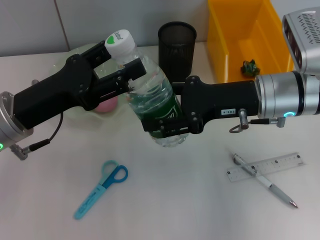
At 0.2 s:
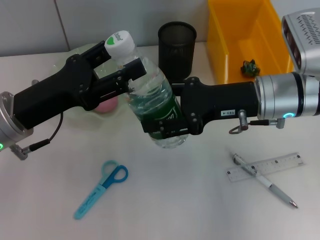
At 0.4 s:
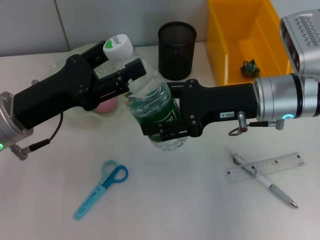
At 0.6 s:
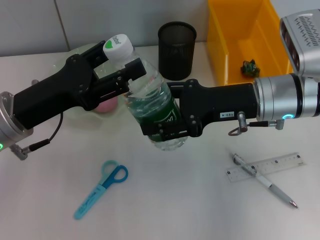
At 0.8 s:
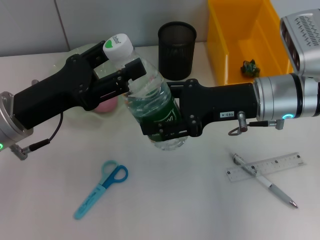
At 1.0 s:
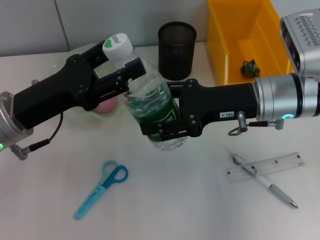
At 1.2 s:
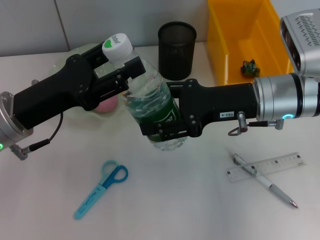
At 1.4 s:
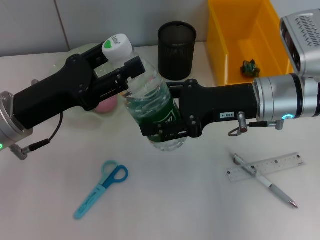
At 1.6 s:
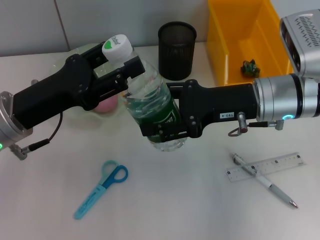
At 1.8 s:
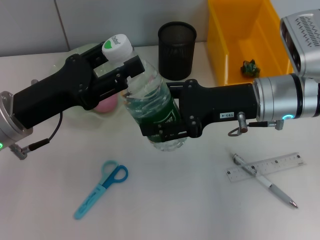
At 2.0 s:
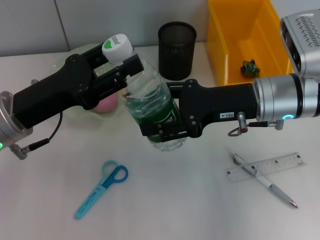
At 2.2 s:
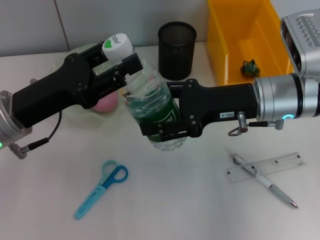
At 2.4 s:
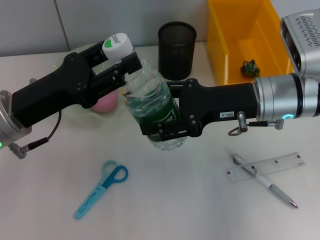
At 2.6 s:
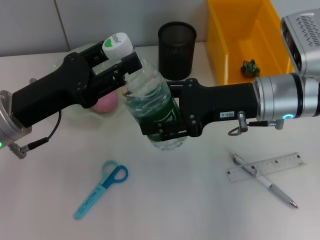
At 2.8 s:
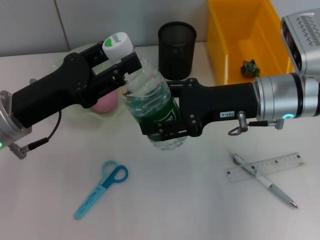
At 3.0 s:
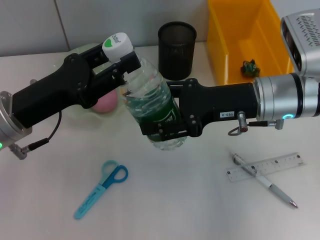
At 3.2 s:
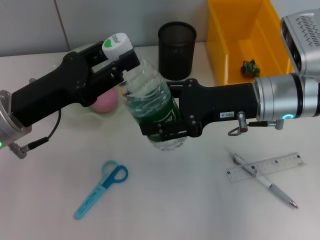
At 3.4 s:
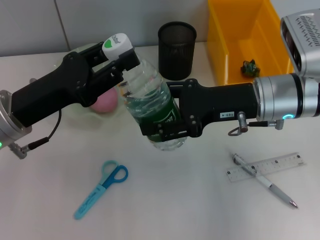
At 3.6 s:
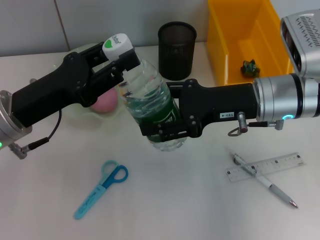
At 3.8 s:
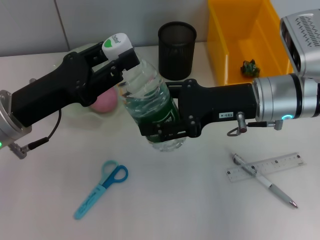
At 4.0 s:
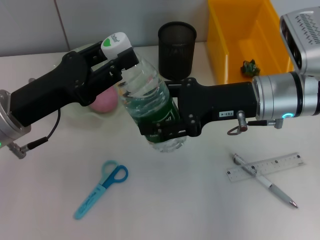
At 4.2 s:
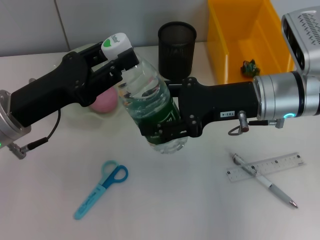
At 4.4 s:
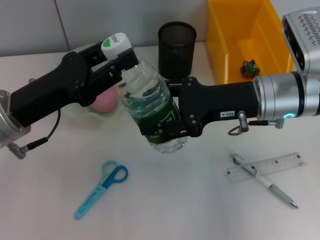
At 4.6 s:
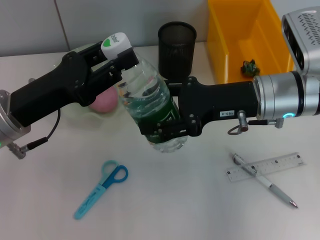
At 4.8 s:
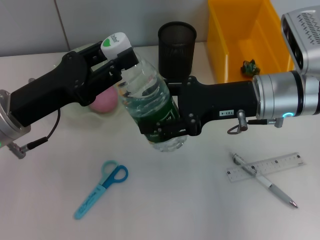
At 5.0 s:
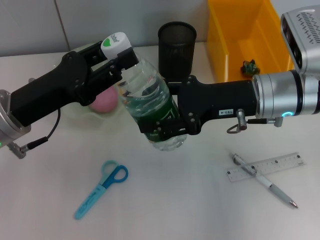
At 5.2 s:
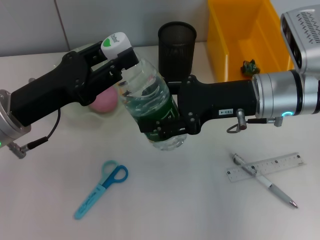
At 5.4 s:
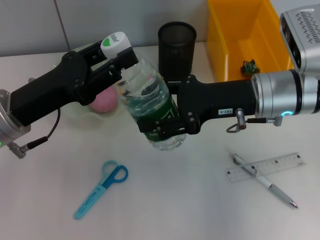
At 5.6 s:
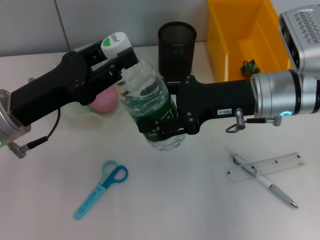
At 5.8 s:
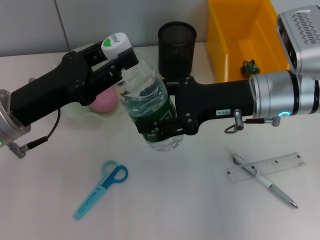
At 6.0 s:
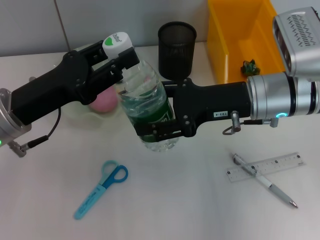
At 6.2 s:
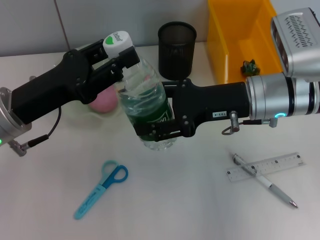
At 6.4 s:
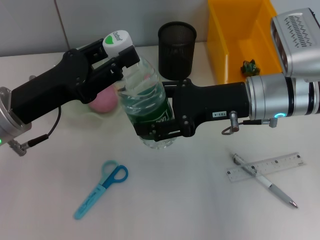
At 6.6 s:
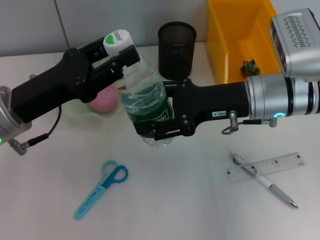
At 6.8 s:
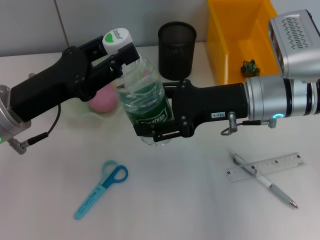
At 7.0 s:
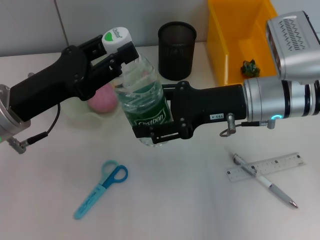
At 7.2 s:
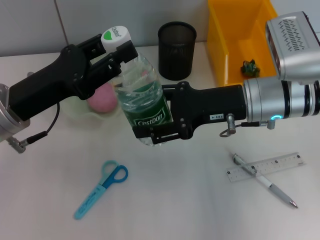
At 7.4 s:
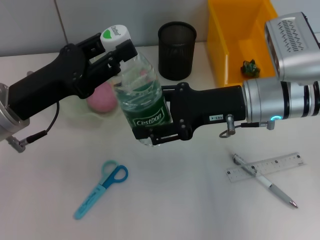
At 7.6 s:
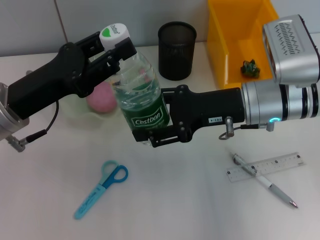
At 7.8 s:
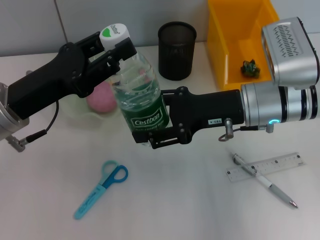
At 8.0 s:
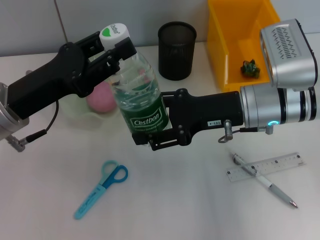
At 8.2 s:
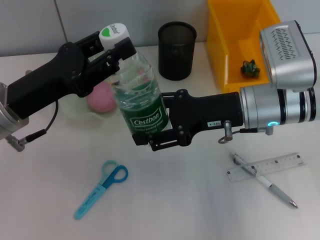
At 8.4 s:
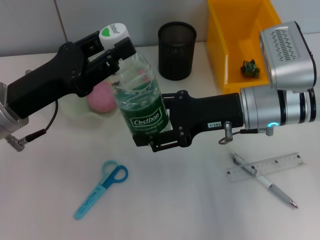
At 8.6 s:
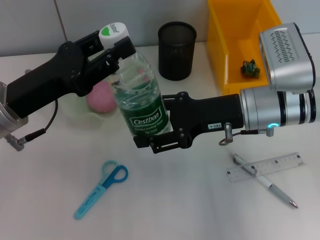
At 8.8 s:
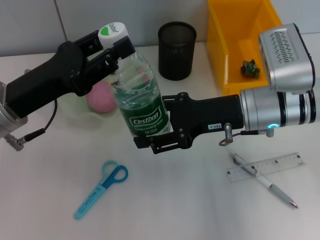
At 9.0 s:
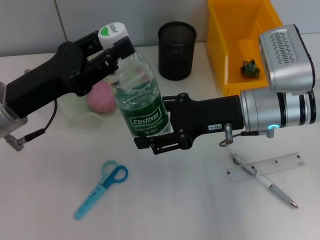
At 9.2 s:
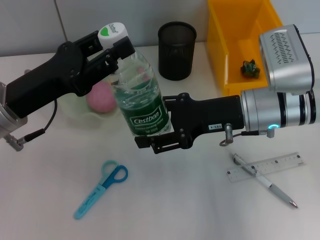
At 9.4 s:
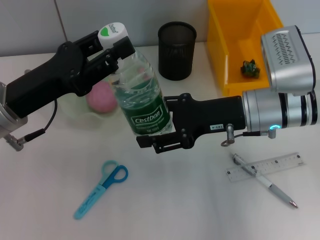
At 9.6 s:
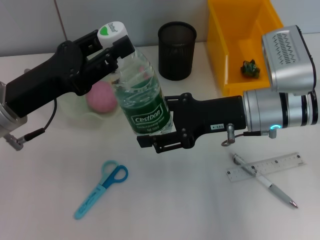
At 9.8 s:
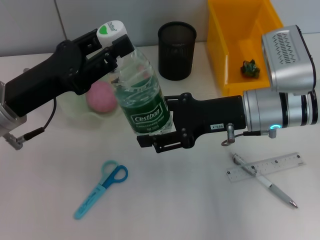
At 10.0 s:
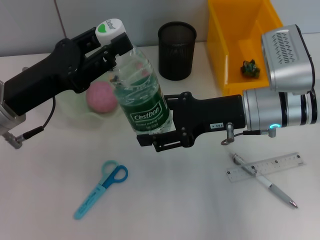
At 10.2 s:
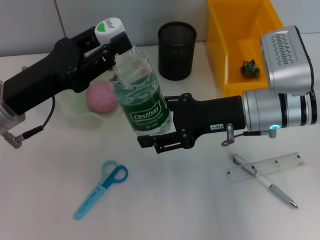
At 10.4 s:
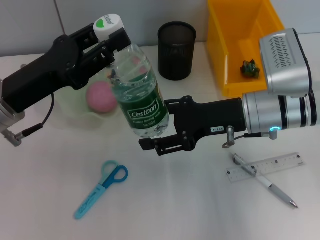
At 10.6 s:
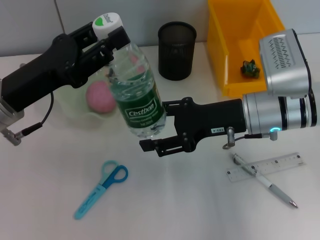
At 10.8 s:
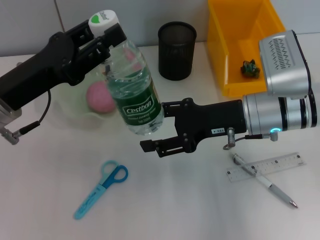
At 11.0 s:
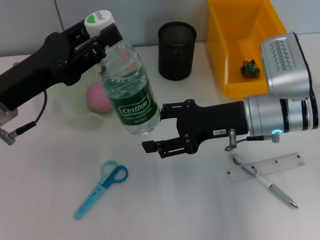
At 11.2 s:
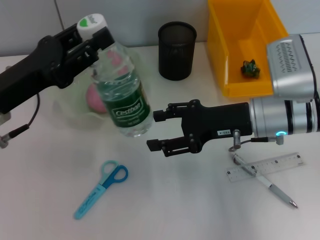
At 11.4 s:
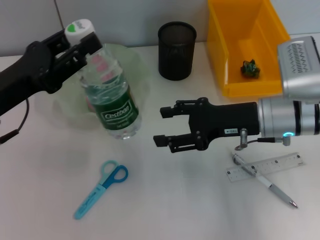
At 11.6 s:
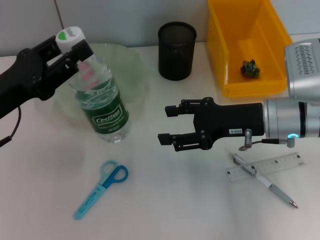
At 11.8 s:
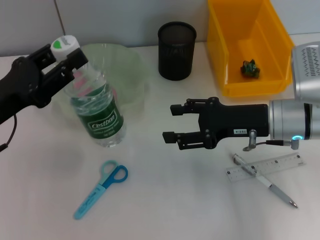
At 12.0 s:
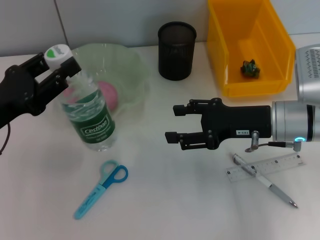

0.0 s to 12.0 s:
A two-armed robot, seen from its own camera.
Step, 0.0 to 7.2 s: Pass the water bottle from the right hand to the left hand.
0.0 to 6.0 s: Both grippers stay about where they are.
6.0 to 7.6 s: Both grippers stay put.
7.6 to 9.0 s: Both grippers stay put.
9.0 to 10.4 s: Both grippers stay put.
10.4 to 12.0 s: The left gripper shifts approximately 5 cm to the left.

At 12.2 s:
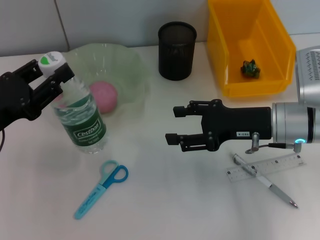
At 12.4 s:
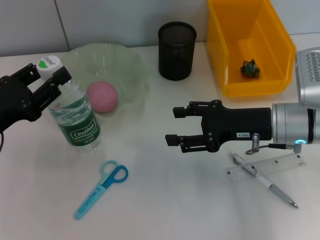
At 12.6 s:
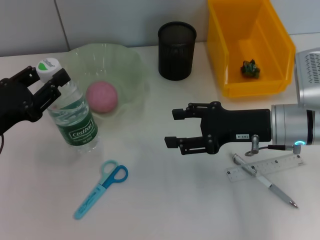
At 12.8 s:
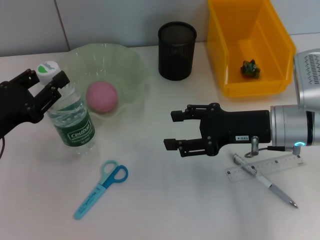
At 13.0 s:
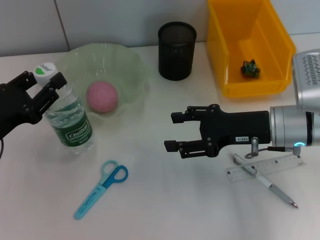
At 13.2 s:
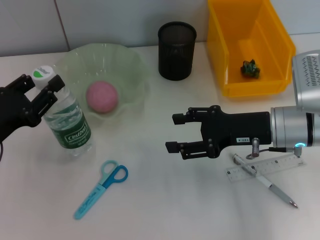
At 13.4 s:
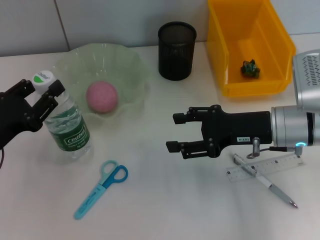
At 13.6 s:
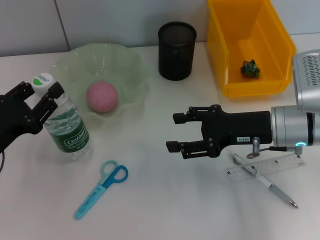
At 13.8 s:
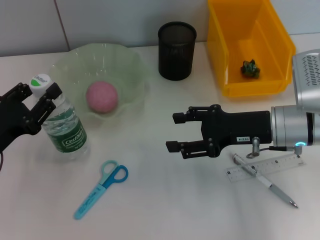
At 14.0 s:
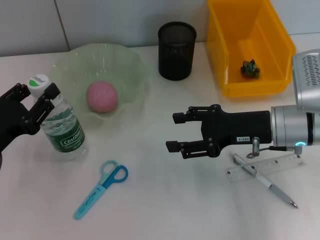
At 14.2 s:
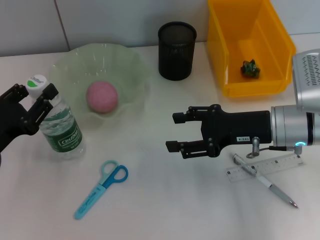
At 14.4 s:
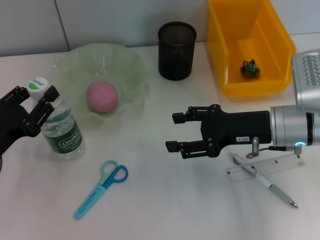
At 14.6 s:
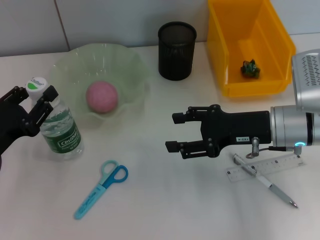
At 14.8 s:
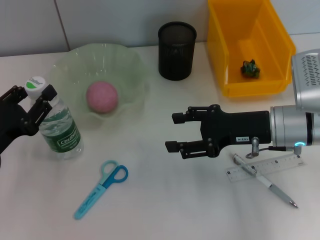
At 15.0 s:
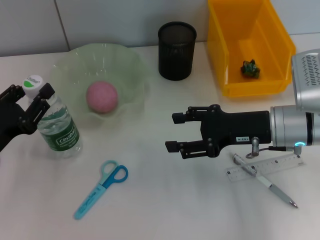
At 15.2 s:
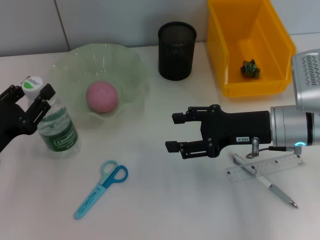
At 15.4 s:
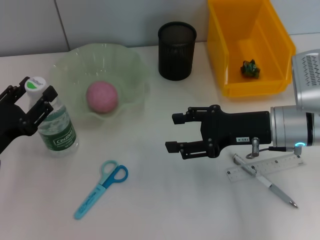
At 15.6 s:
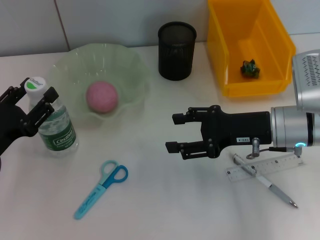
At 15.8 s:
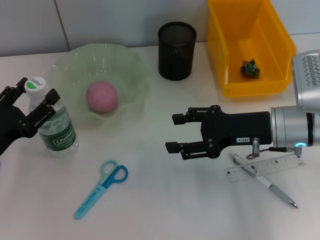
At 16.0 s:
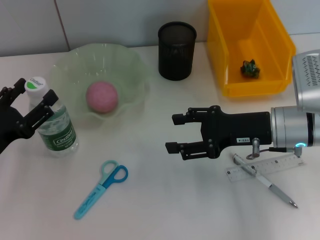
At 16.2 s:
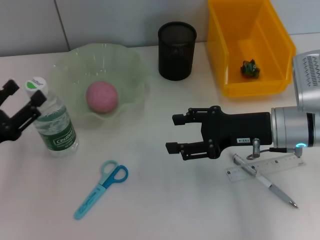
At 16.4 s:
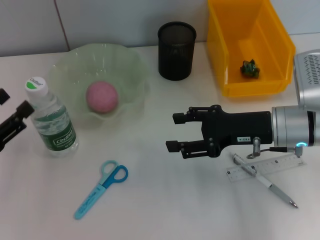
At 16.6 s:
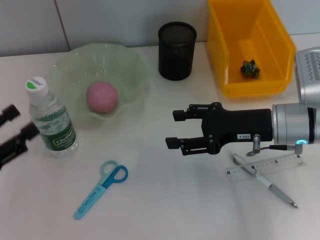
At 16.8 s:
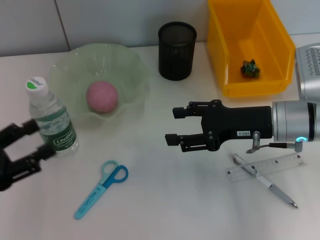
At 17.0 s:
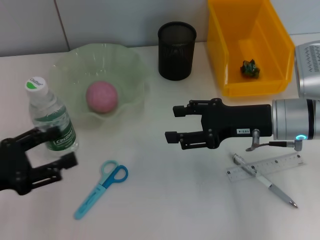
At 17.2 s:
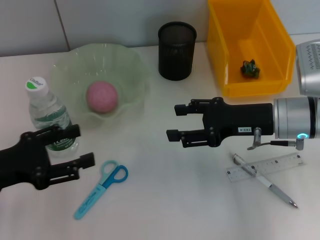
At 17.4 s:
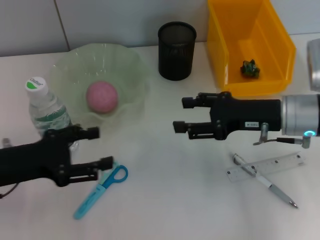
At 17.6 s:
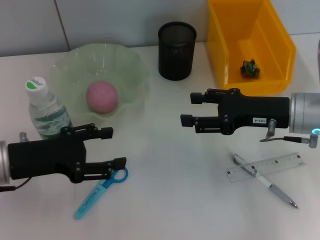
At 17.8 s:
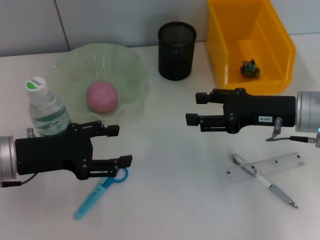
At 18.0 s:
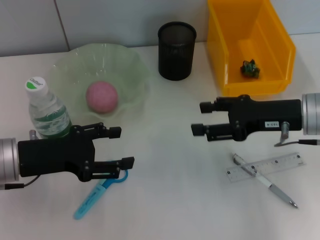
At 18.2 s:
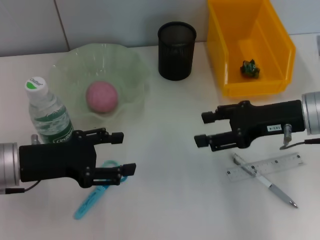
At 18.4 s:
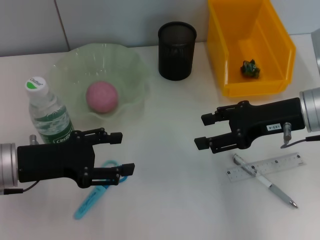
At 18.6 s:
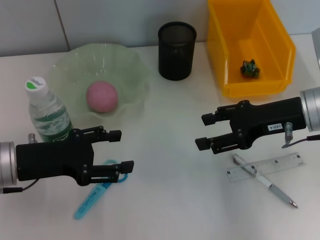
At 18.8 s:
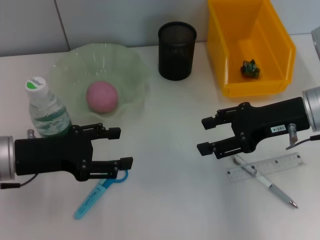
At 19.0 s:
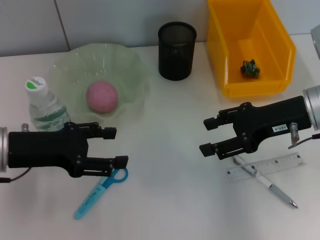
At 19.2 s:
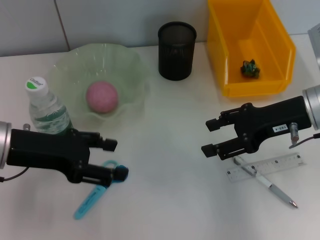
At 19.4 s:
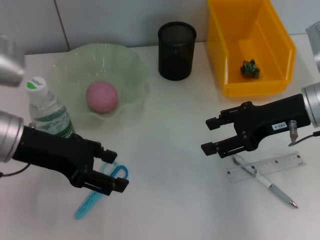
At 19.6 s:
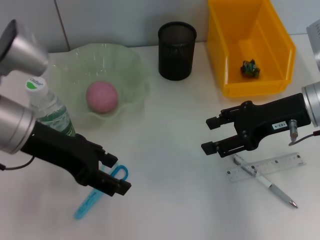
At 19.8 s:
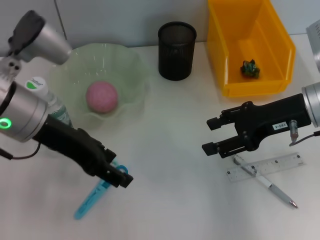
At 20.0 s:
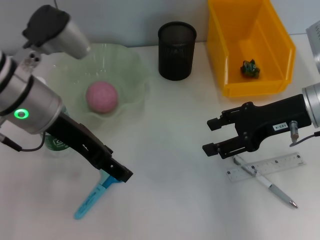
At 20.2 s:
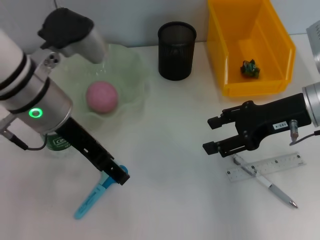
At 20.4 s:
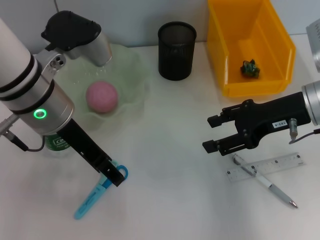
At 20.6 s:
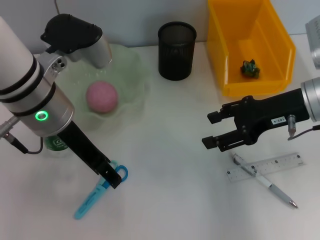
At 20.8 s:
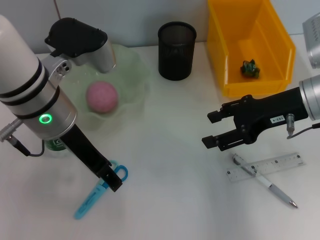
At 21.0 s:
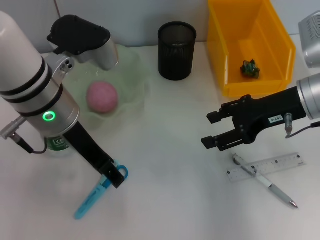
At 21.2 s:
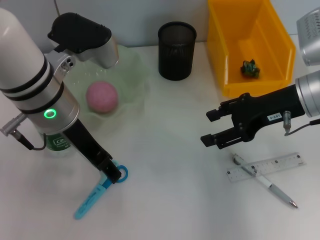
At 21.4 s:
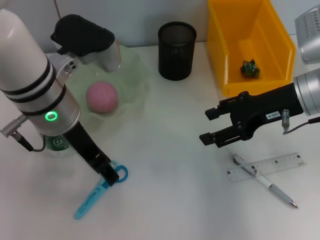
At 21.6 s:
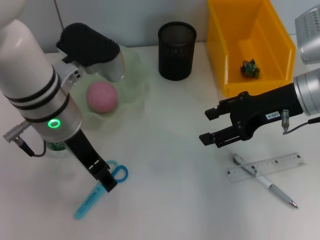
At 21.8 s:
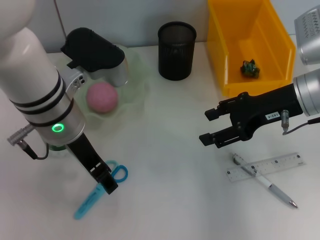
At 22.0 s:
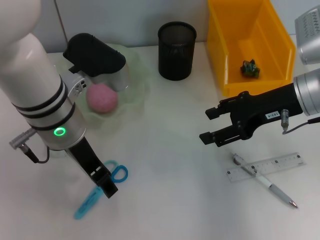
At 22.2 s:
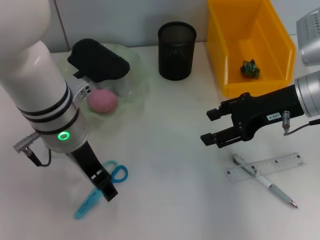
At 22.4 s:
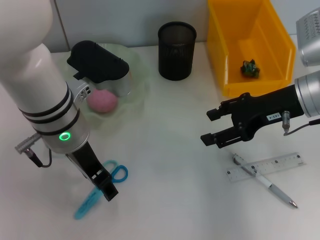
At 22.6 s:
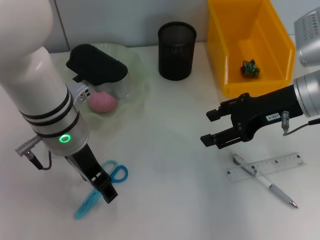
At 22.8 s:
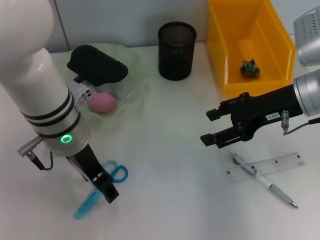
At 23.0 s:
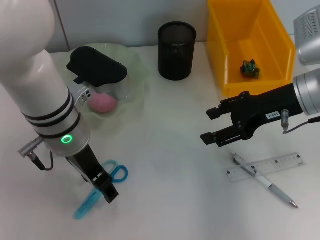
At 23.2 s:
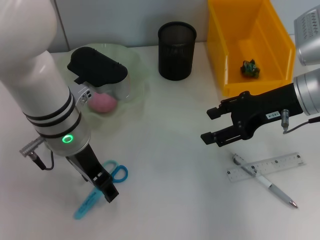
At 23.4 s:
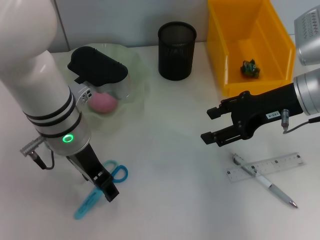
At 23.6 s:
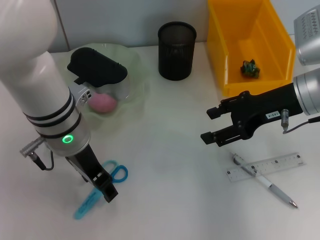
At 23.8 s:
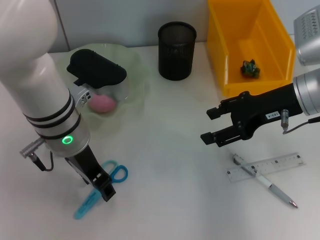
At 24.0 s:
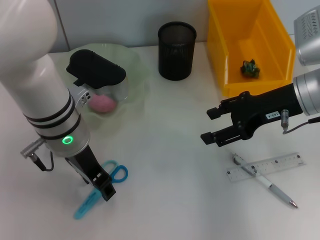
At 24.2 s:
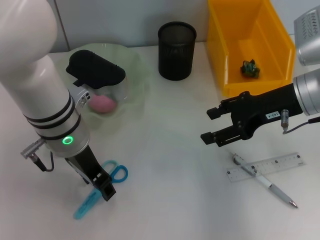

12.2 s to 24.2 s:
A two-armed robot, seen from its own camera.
Step, 12.2 to 15.6 s: Place the water bottle on the table with the left hand.
12.2 to 13.8 s: There are only small adjustments of the grippers.
13.8 to 15.2 s: Neither gripper changes place.
15.2 to 16.6 s: The left gripper changes place by roughly 5 cm, and opens its fingers.
16.6 to 18.2 s: The left gripper heads to the right and forward, covering some 10 cm.
18.2 to 19.8 s: The left gripper is displaced upward and to the right by some 10 cm.
19.8 to 21.2 s: The left gripper shifts some 5 cm to the right.
21.2 to 24.2 s: The grippers stay close to where they were, moving slightly.
